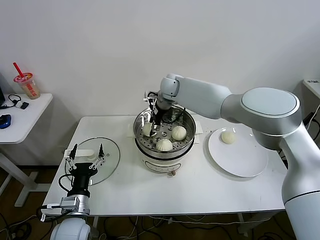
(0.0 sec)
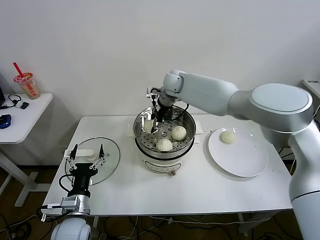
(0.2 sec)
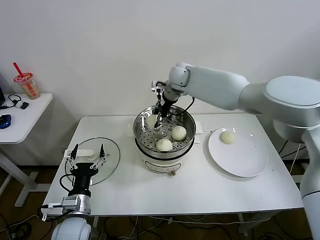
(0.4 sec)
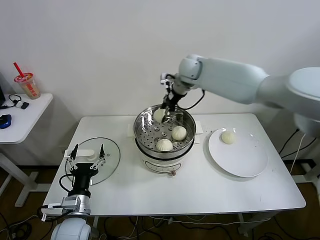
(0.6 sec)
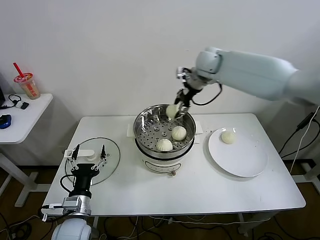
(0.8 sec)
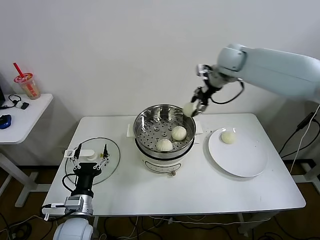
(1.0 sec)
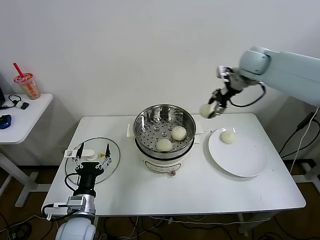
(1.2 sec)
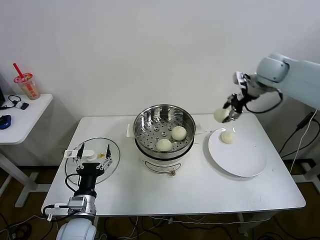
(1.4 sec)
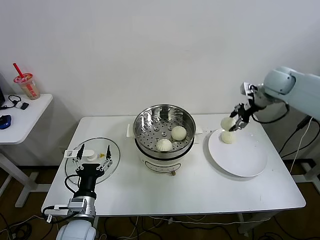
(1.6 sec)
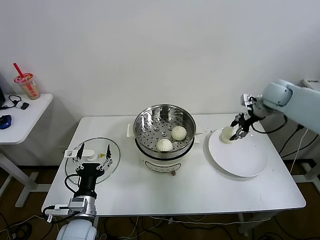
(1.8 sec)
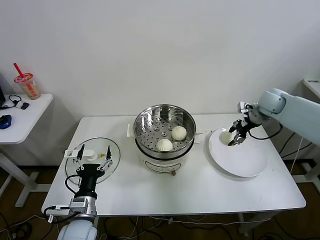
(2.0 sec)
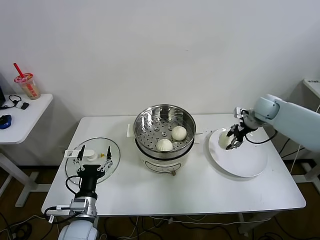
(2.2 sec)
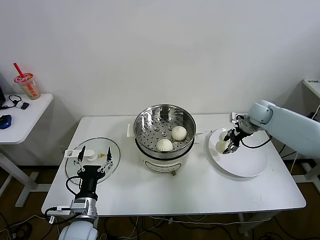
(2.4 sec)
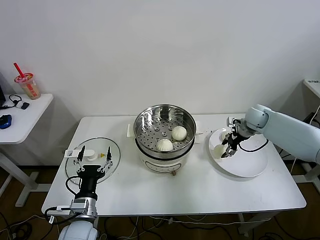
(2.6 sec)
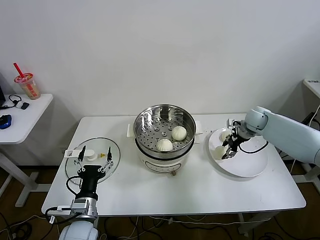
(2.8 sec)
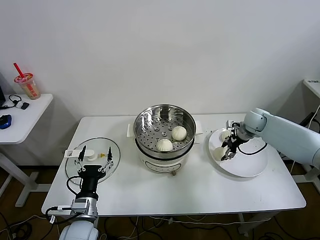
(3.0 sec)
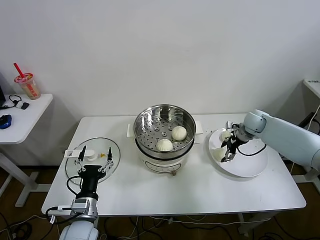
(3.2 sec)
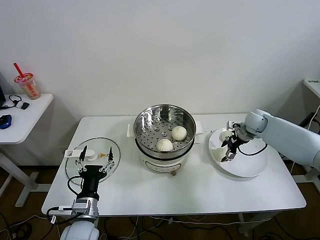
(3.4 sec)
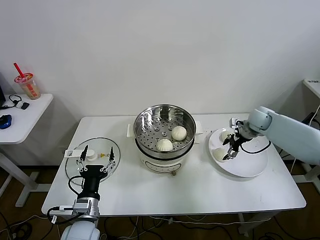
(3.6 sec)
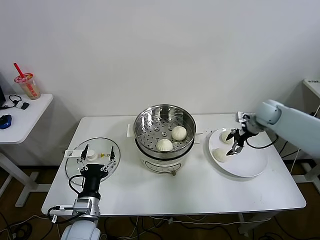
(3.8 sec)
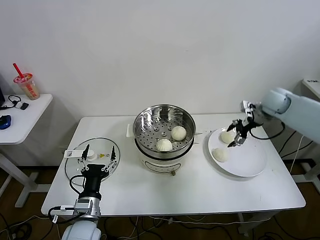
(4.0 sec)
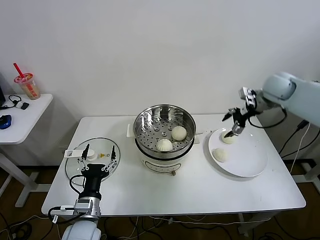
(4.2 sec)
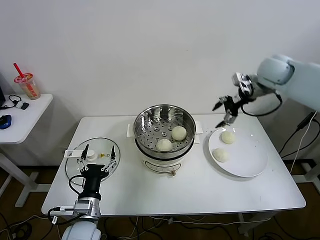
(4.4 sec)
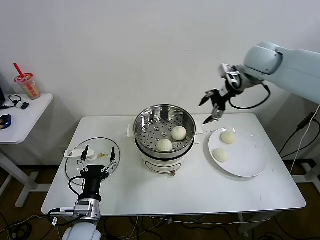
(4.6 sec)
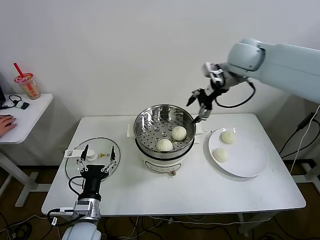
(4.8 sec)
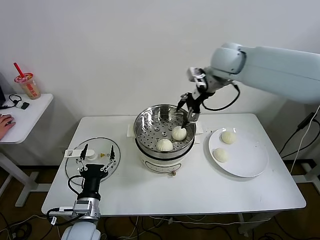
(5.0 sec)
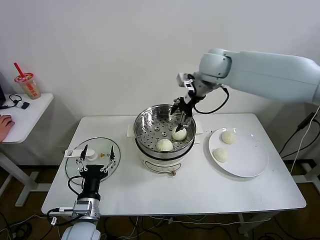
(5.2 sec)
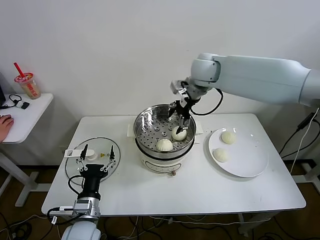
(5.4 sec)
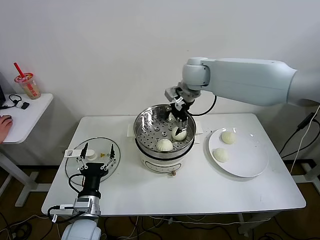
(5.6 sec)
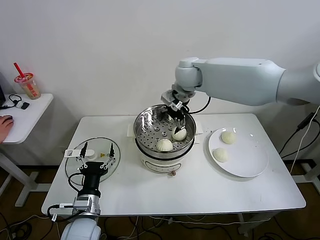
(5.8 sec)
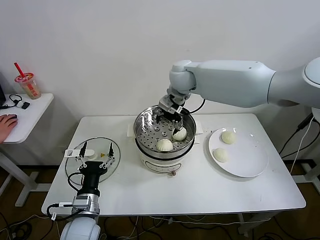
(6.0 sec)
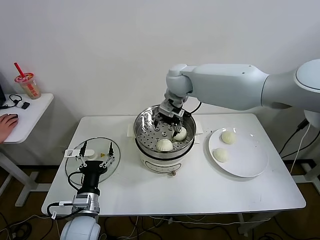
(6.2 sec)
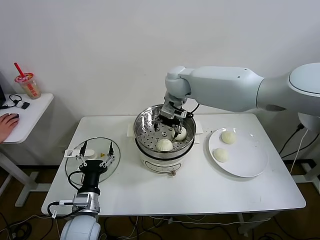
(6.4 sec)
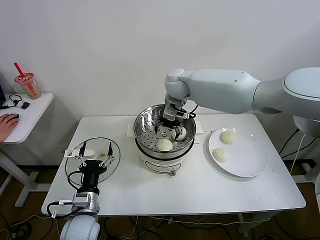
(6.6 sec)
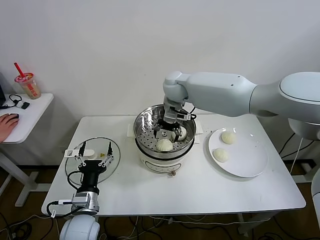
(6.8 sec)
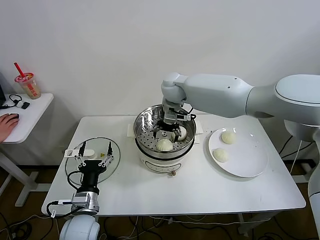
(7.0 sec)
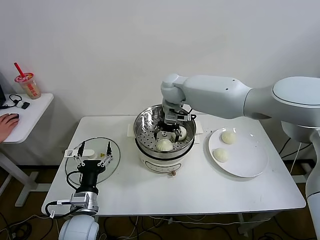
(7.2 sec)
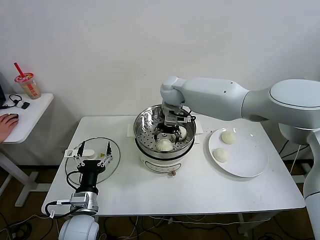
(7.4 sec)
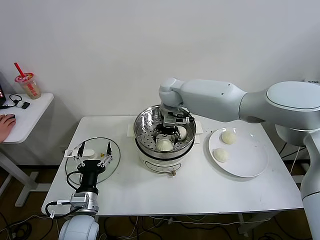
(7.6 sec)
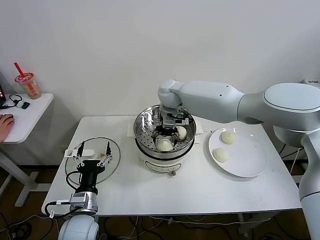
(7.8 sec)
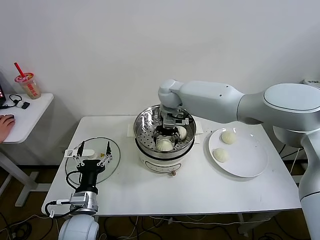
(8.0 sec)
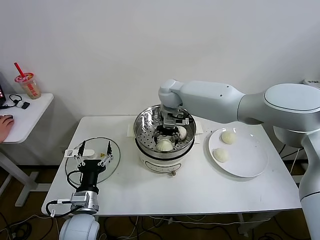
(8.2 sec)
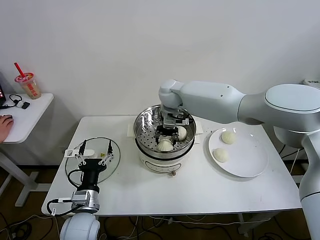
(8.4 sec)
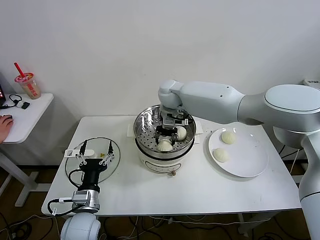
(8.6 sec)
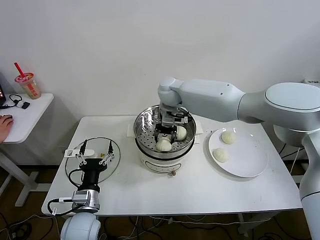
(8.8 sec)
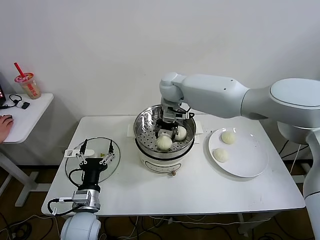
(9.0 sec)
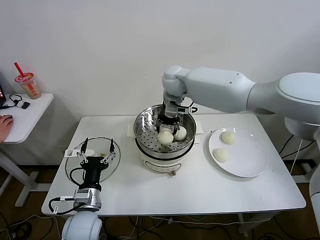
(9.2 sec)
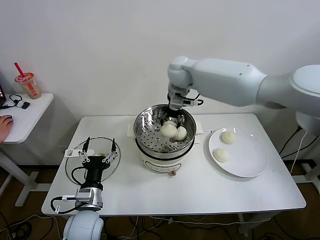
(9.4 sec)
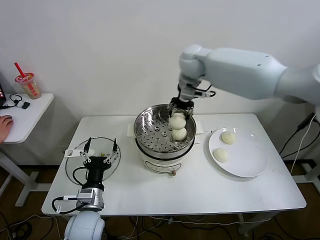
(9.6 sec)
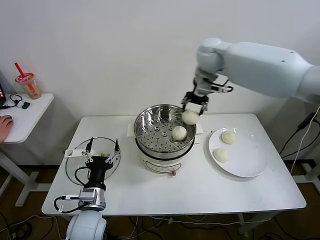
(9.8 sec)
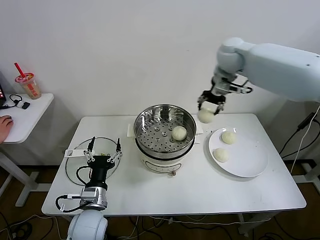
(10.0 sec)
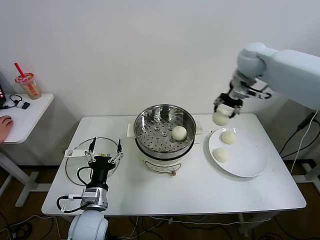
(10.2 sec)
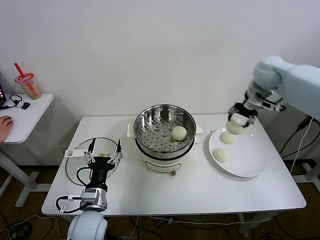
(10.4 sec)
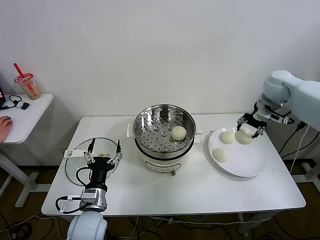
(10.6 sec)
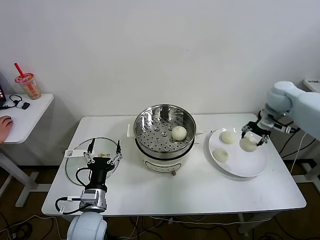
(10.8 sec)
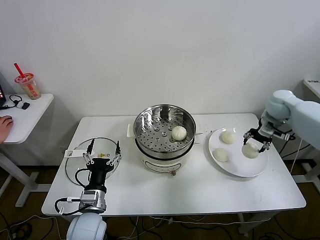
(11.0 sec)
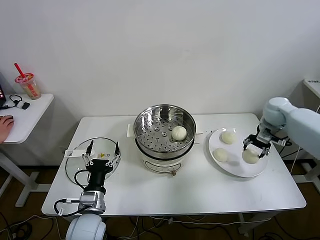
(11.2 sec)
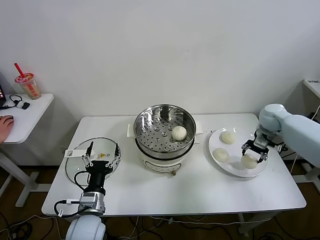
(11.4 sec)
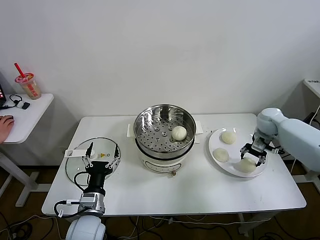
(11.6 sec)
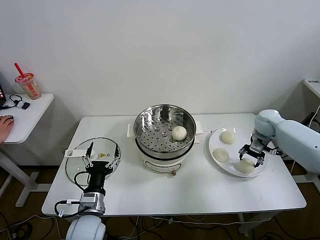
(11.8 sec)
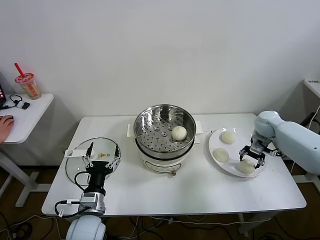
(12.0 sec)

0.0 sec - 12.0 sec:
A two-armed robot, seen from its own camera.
Task of the whole recording: take steamed baozi put them in steamer then cover it.
Step, 0.0 sec - 3.0 sec: Place the baozi on the plate with right gripper.
Step, 3.2 sec - 8.4 sec: Grasp the baozi with right gripper.
0.0 sec - 1.6 sec: The right gripper moves to the right, approximately 35 cm.
1.6 sec - 3.0 sec: The right gripper shifts some 15 cm downward.
3.0 sec - 4.4 sec: The right gripper is displaced upward by roughly 25 cm, and opens up.
4.4 sec - 6.0 sec: The right gripper heads to the left, covering about 25 cm.
6.0 sec - 7.6 sec: The right gripper shifts roughly 5 cm downward.
7.6 sec - 9.0 sec: The right gripper closes up.
9.0 sec - 10.4 sec: The right gripper is displaced to the right by some 30 cm.
10.4 sec - 12.0 sec: The right gripper shifts approximately 20 cm downward.

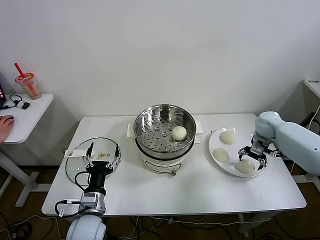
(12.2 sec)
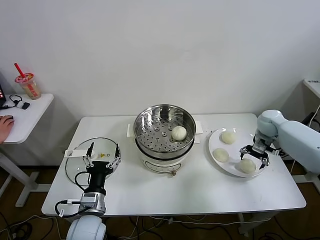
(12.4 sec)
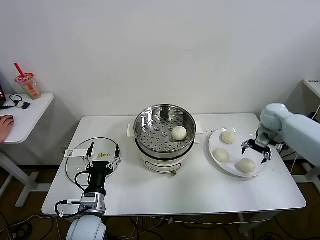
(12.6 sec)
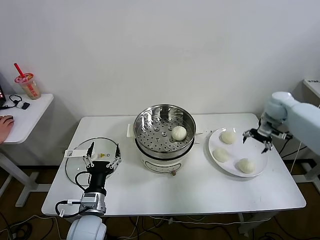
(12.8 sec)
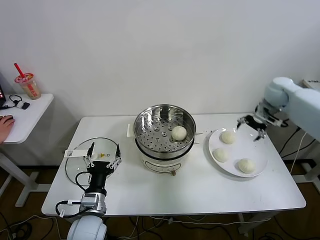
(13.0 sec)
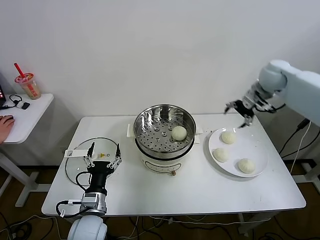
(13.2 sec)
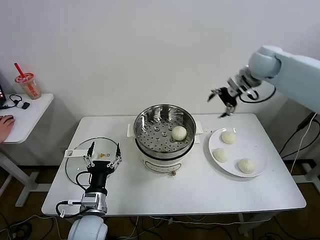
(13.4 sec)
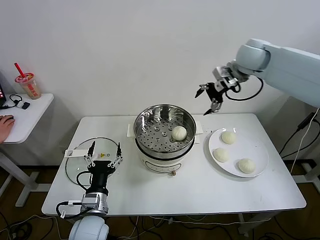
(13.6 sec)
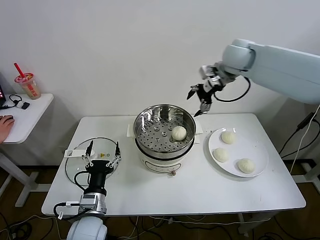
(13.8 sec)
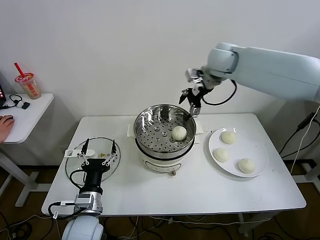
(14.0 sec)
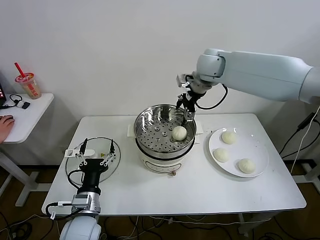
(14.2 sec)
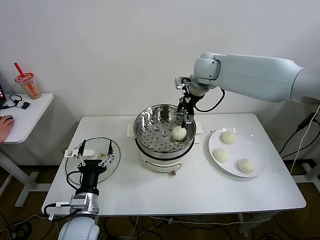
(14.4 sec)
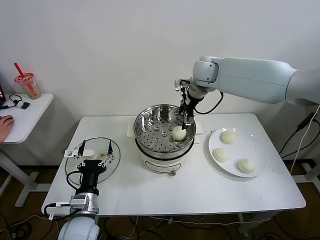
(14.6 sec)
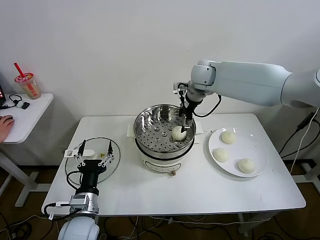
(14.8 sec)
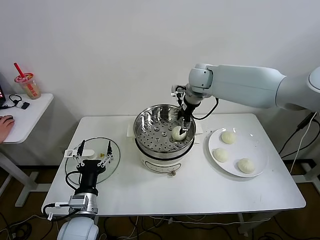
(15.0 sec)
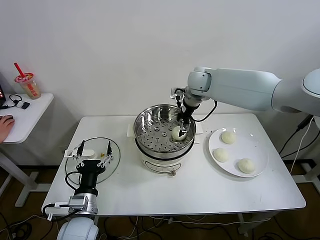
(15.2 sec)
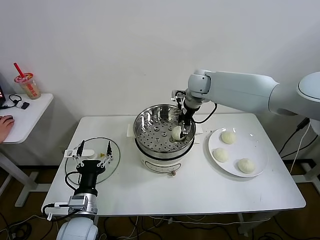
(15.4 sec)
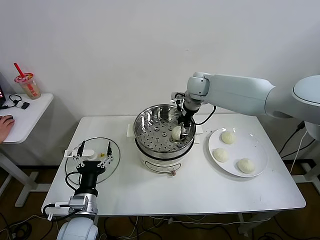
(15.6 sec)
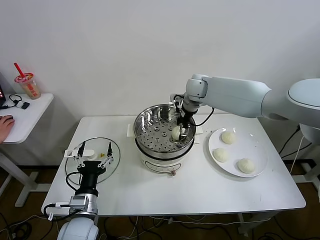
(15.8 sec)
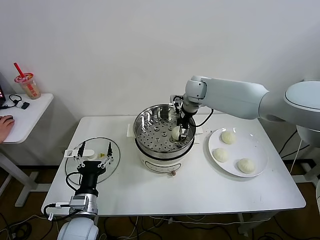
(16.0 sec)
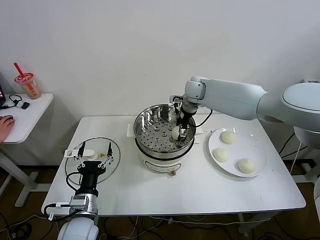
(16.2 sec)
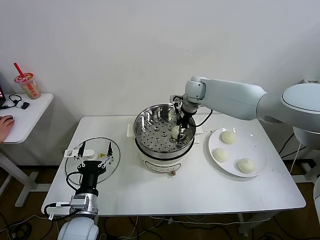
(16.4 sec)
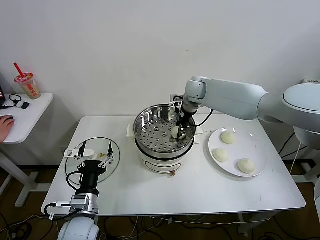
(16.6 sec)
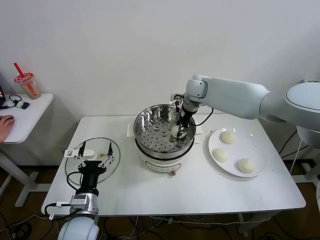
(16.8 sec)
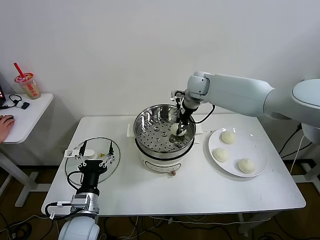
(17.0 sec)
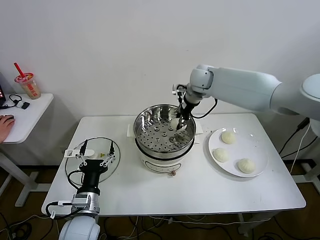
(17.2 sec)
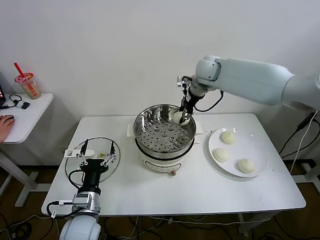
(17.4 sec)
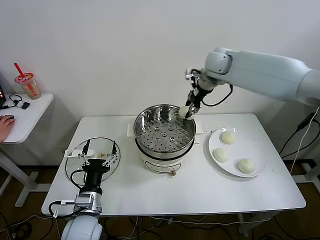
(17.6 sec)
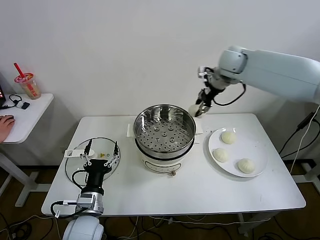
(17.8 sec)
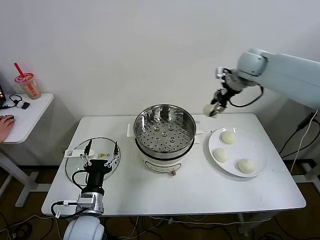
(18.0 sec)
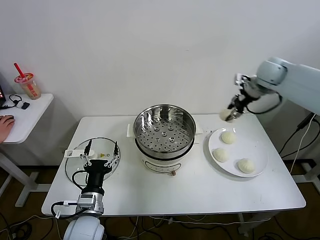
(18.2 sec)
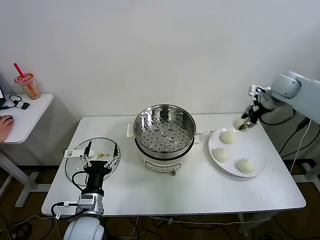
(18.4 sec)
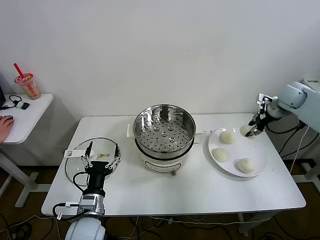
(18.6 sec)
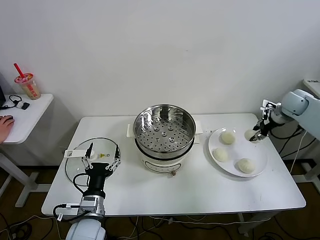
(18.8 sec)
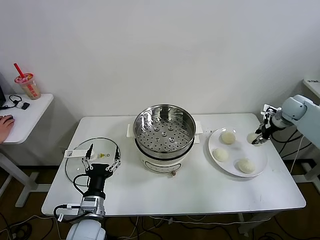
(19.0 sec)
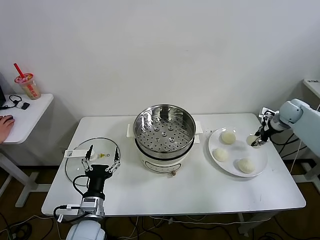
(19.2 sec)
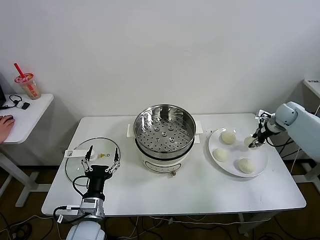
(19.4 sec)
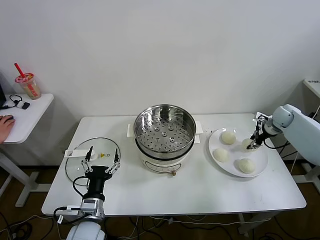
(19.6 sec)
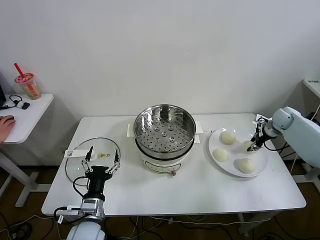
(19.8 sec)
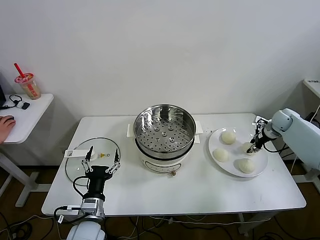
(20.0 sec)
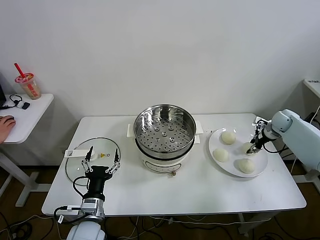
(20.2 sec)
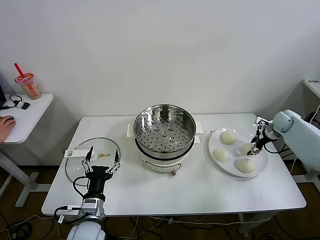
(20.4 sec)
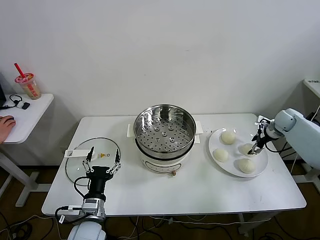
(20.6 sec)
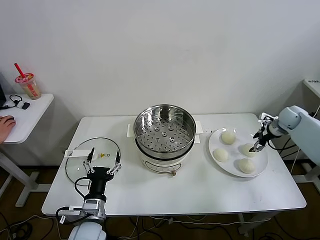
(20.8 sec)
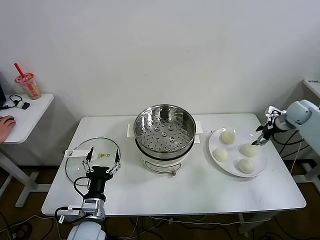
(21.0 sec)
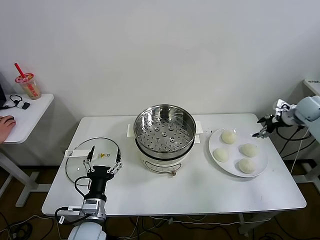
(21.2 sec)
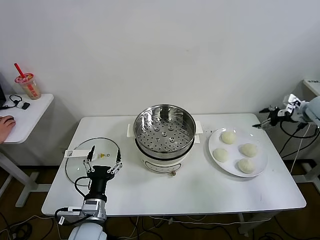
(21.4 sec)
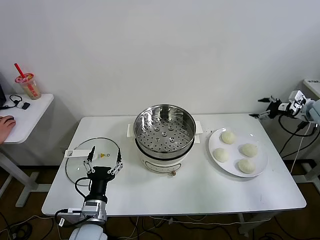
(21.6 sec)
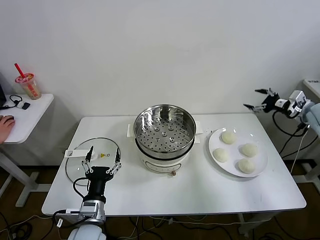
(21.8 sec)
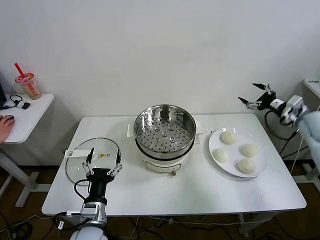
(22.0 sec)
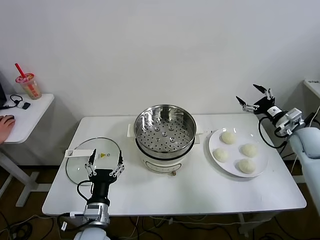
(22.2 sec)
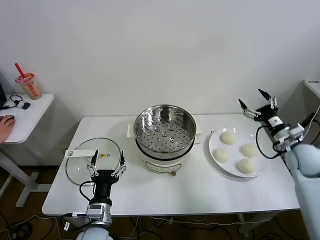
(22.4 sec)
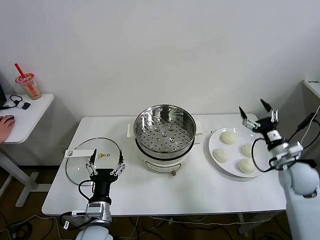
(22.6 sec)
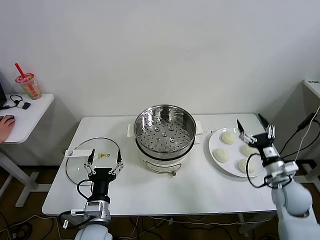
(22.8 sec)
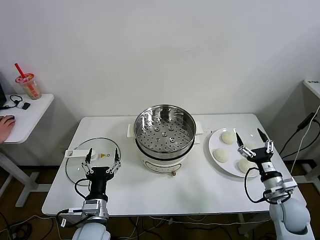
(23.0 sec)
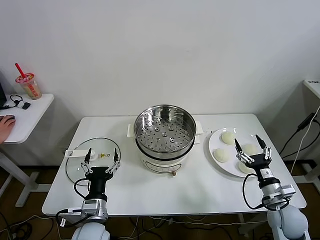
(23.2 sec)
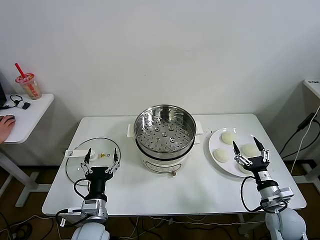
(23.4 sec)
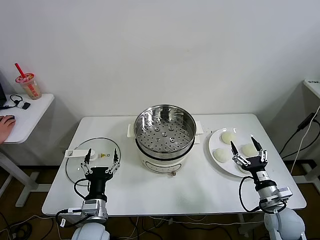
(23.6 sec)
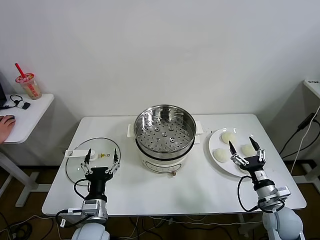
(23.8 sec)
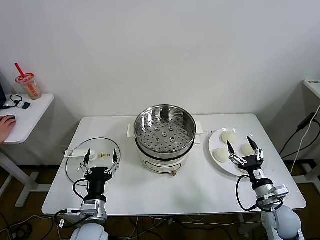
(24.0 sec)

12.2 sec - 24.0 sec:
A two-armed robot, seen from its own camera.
Task of the whole recording: take steamed baozi put them in steamer then cover it.
Step, 12.4 sec - 16.4 sec: Grasp the baozi with right gripper.
Step, 16.8 sec - 20.4 sec: Place the baozi on the plate with right gripper.
12.2 sec - 13.6 sec: The right gripper is displaced upward and to the left by roughly 30 cm.
13.6 sec - 15.2 sec: The right gripper shifts some 15 cm to the left and downward.
15.2 sec - 16.6 sec: The right gripper closes its fingers.
16.6 sec - 18.2 sec: The right gripper goes about 25 cm to the right.
18.2 sec - 19.6 sec: The right gripper goes roughly 25 cm downward and to the right.
19.6 sec - 21.0 sec: The right gripper moves roughly 5 cm, and opens its fingers.
21.0 sec - 22.6 sec: The right gripper moves backward and to the left, some 25 cm.
22.6 sec - 24.0 sec: The right gripper heads backward, downward and to the left, covering some 15 cm.
